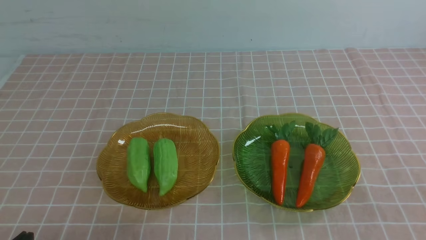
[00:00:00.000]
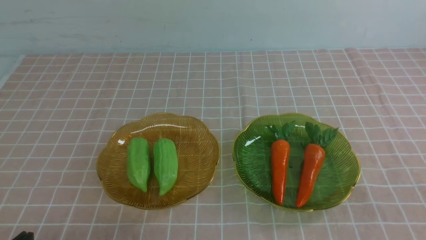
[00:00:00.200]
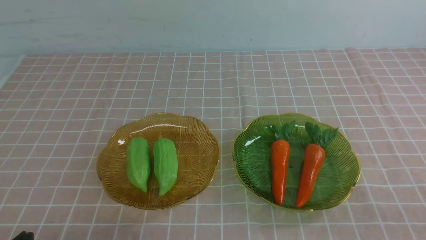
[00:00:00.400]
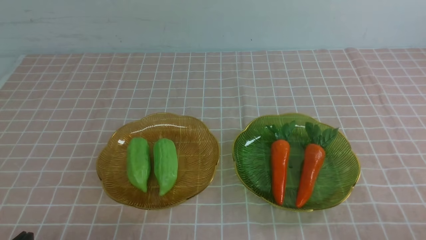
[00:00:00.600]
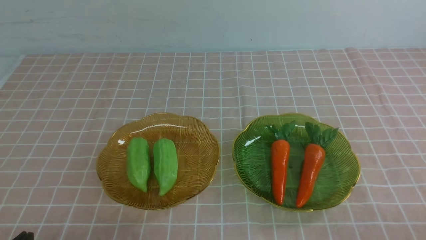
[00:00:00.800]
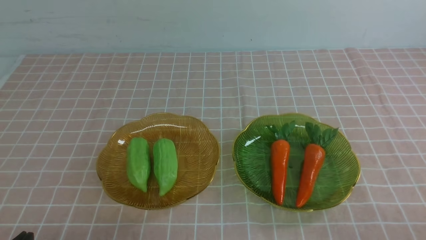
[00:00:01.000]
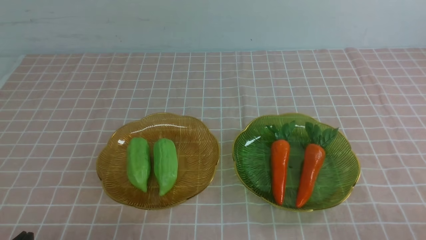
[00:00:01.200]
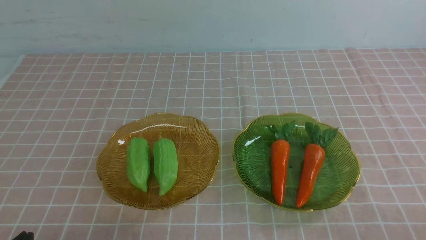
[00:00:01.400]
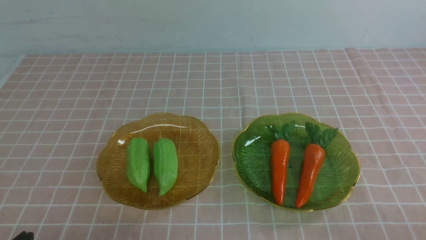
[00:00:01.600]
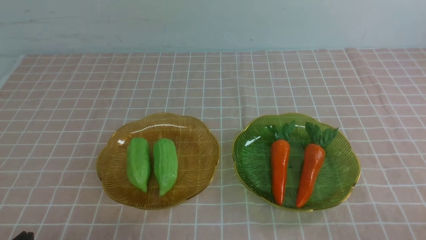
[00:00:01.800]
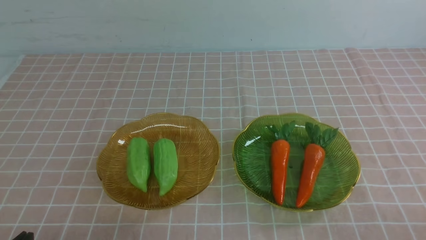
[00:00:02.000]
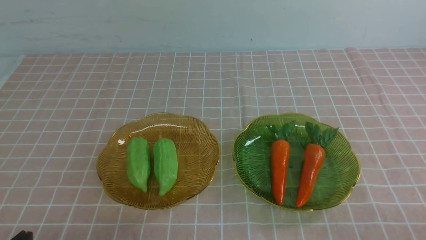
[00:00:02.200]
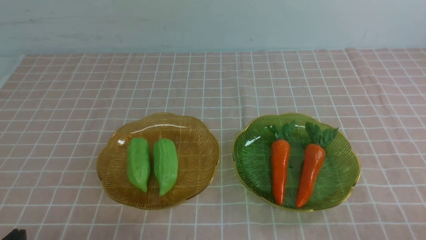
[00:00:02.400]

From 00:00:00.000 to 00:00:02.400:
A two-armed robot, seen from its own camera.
From 00:00:01.200 to 00:00:02.400: Neither gripper changes place.
